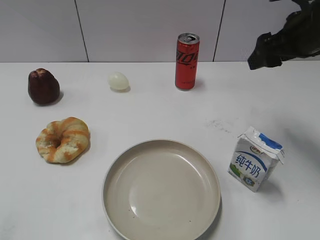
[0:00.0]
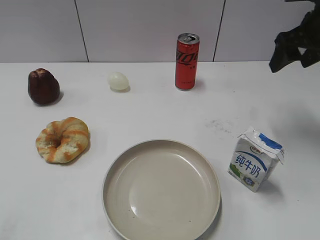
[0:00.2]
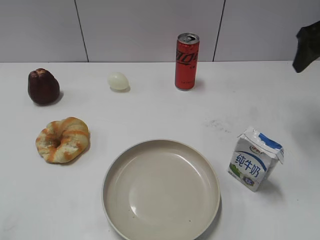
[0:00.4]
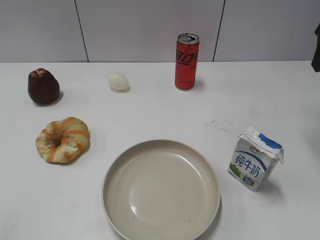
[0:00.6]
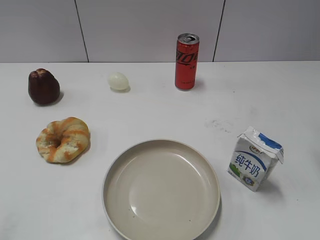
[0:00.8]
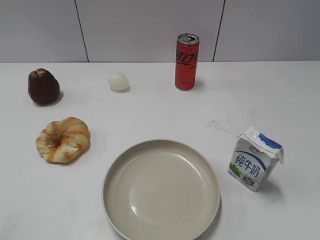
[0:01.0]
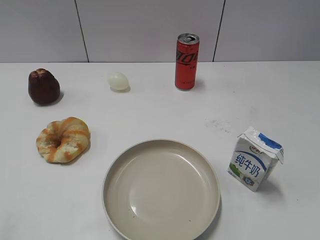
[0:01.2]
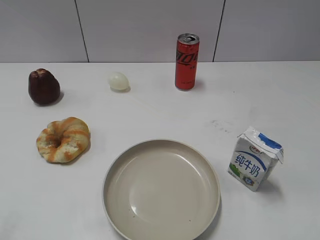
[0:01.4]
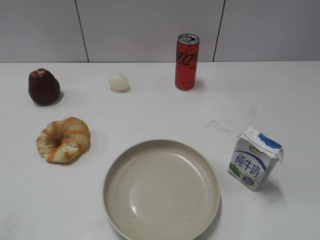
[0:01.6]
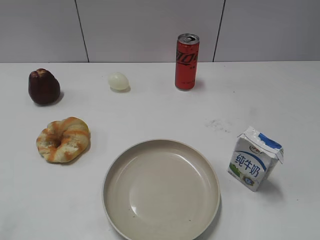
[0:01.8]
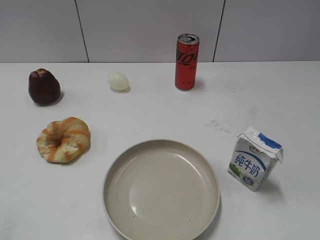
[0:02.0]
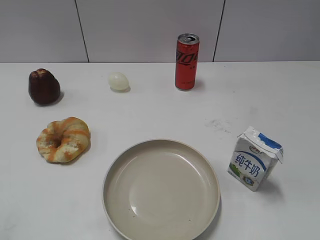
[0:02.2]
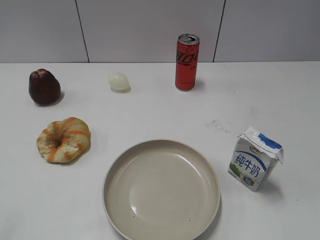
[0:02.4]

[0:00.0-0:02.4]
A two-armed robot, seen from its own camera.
0:00.0 to 0:01.2: The right gripper travels backward by approximately 15 cm.
